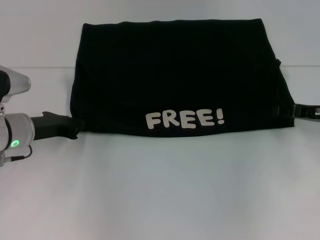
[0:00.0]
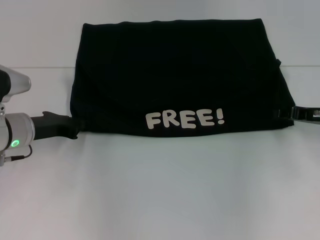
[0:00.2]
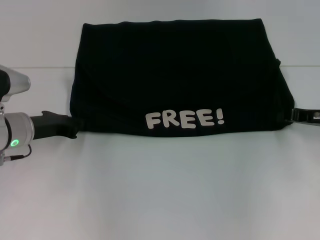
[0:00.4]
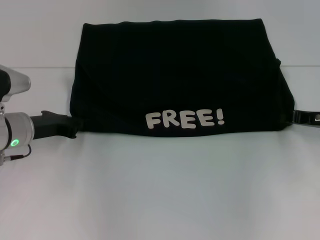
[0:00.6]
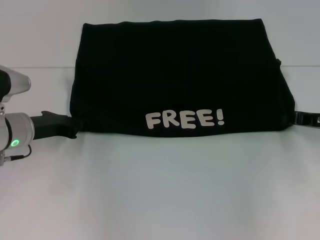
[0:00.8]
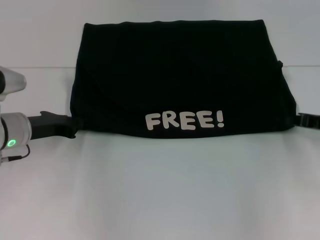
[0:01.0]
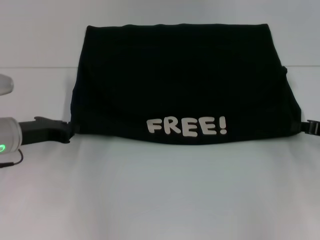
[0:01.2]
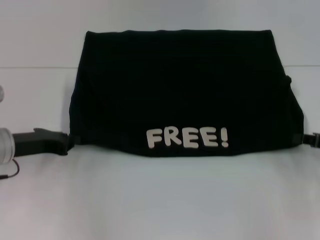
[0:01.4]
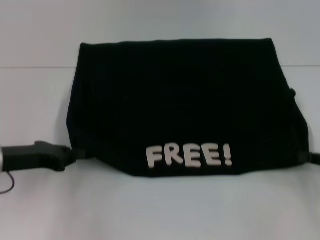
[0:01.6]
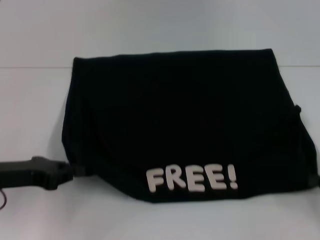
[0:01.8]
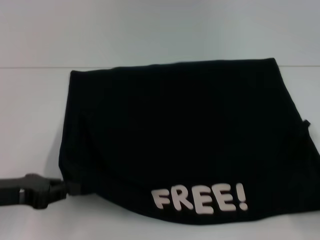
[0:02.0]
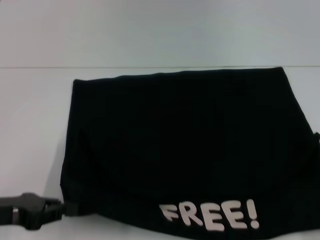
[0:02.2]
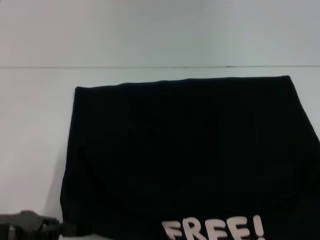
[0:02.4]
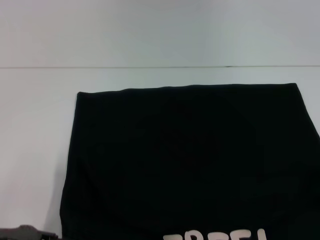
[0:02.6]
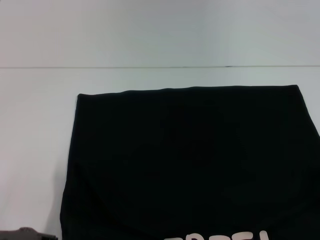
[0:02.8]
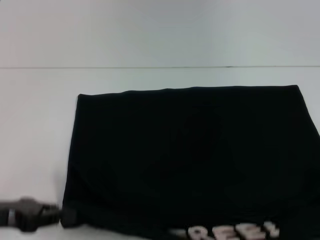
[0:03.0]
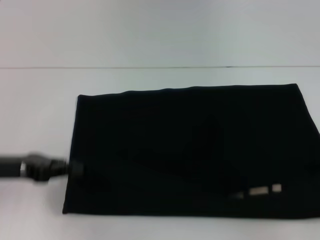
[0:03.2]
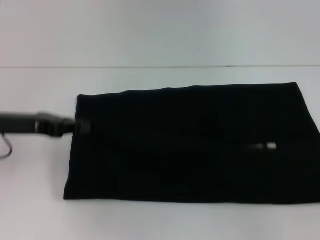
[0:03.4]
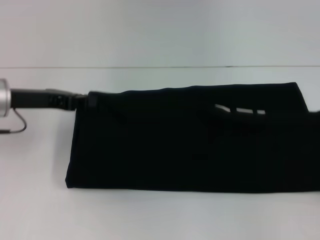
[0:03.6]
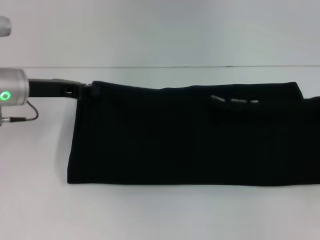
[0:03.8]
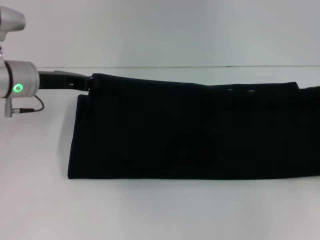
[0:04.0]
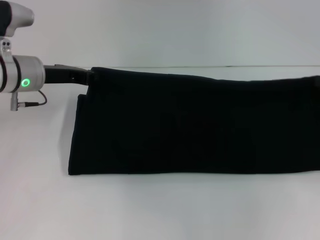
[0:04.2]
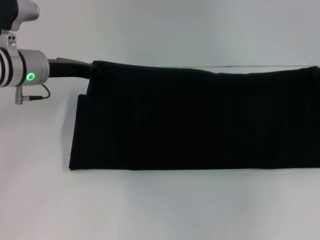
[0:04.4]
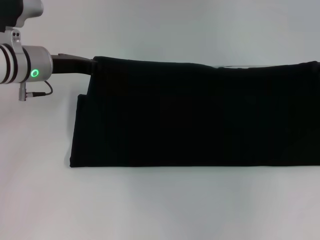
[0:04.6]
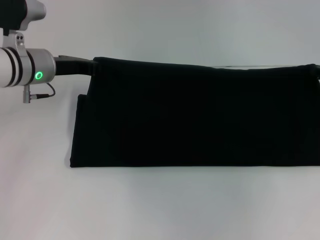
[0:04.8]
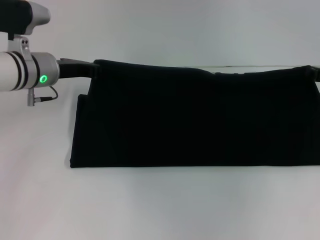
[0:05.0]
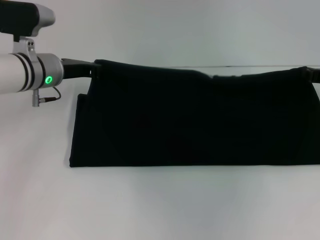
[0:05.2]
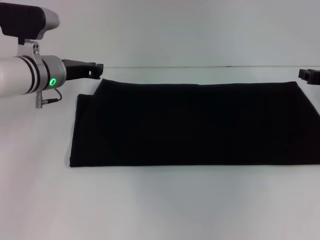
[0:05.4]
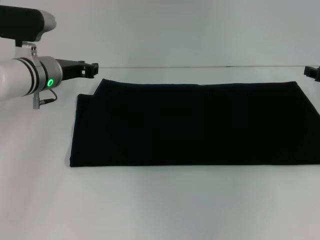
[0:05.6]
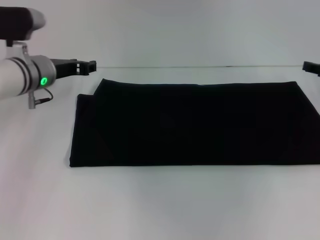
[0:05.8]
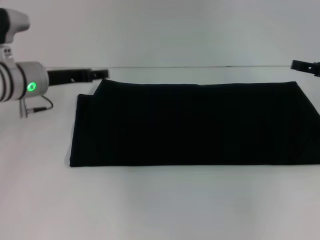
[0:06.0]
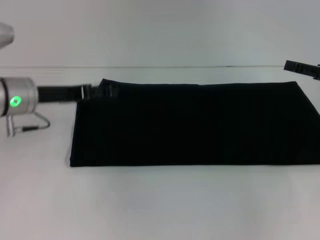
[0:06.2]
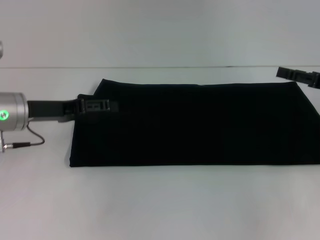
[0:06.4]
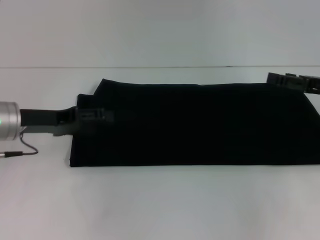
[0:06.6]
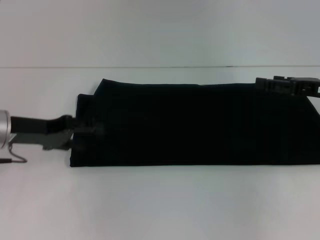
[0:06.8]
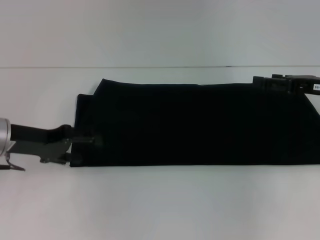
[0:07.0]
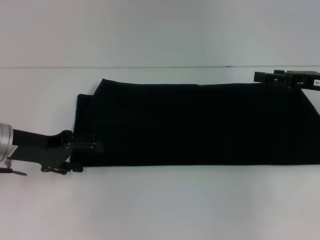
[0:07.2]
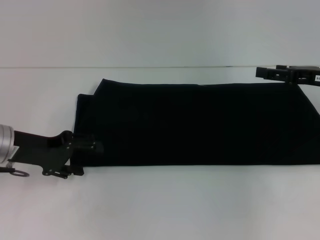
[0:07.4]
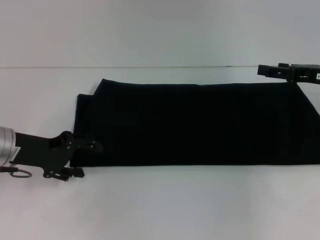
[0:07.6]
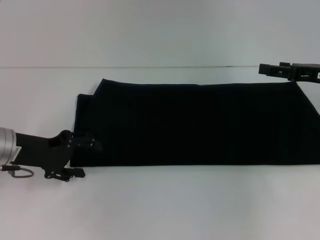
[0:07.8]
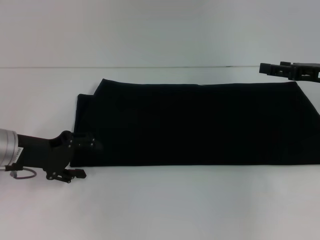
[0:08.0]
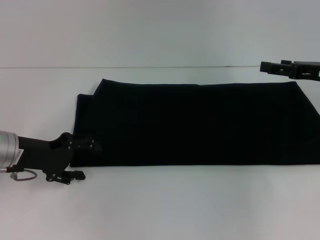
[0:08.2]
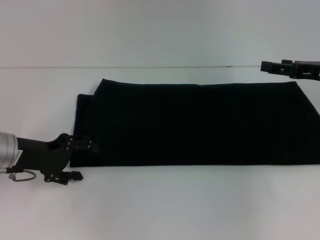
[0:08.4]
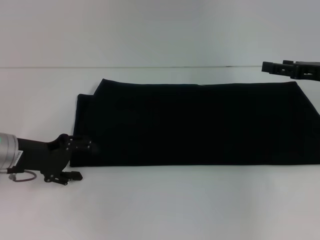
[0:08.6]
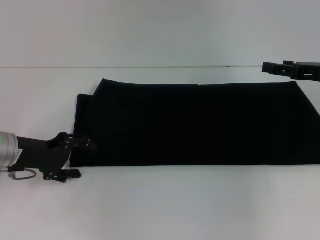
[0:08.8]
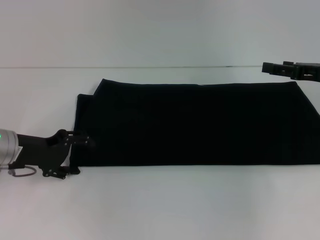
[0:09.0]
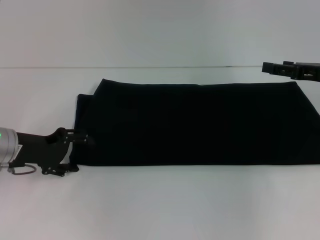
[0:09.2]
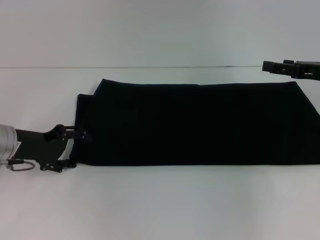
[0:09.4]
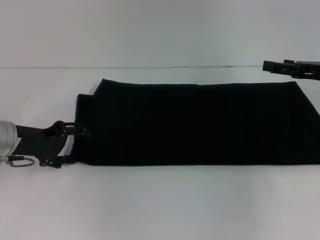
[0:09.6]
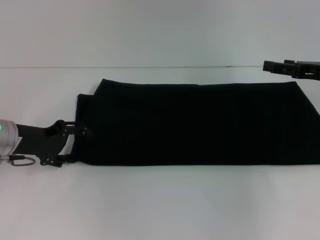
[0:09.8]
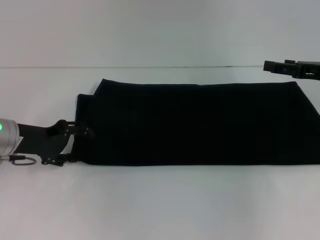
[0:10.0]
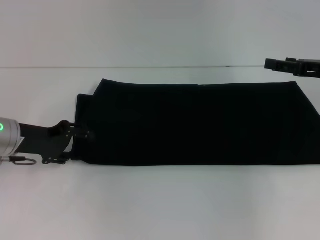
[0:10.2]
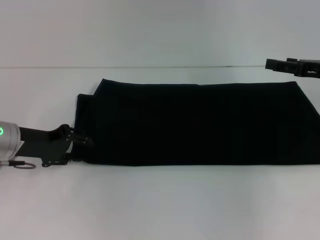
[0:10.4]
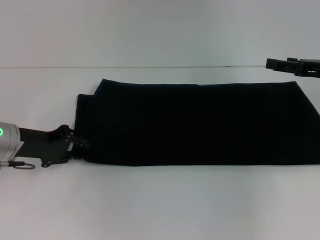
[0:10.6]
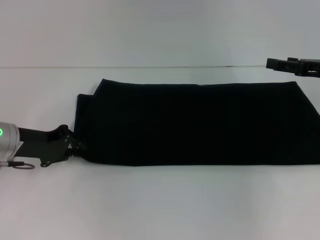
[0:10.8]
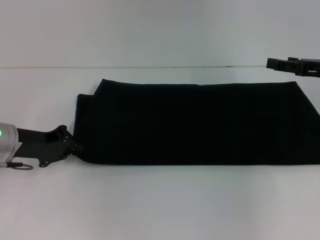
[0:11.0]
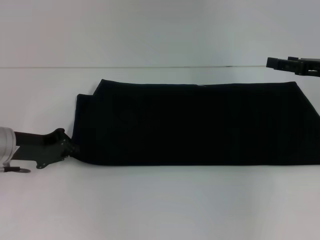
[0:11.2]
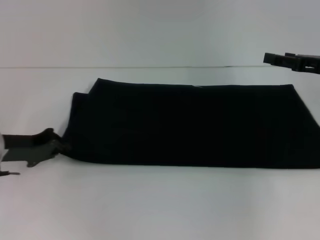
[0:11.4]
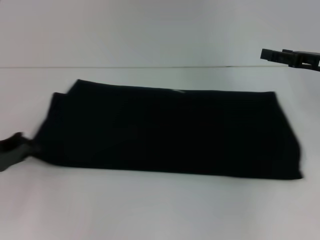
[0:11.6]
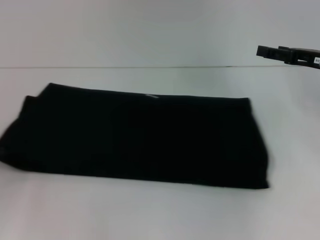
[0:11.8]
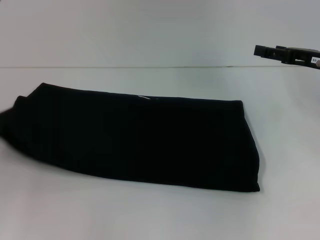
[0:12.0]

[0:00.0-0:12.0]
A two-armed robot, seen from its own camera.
Step, 0:00.0 to 0:02.6: Pull the clothes with your left hand.
Step, 0:00.0 to 0:02.6: Pull the clothes with your right hand.
Step, 0:02.8 to 0:05.4: Fold the clothes with your right hand.
0:00.0 to 0:01.6: The left gripper moves backward, about 5 cm; the right gripper heads backward, covering roughly 10 cm, and closes up.
0:01.6 to 0:03.0: The right gripper shifts about 15 cm backward and to the right; the left gripper is displaced backward by approximately 10 cm.
0:03.0 to 0:04.4: Both grippers travel together forward, some 25 cm.
0:04.4 to 0:06.0: The right gripper opens, while the left gripper opens its fingers.
0:06.0 to 0:07.6: The left gripper heads backward, covering about 10 cm.
0:07.6 to 0:10.4: The grippers move only a little.
0:10.4 to 0:12.0: The left gripper shifts approximately 15 cm to the left and backward, and closes.

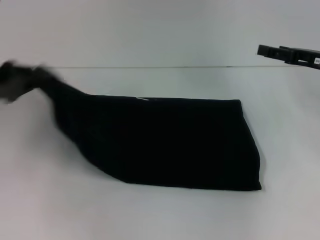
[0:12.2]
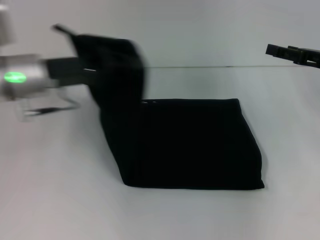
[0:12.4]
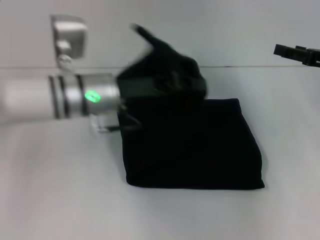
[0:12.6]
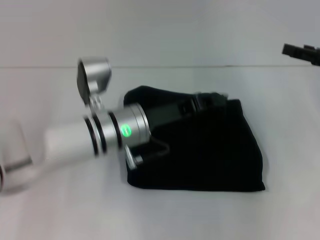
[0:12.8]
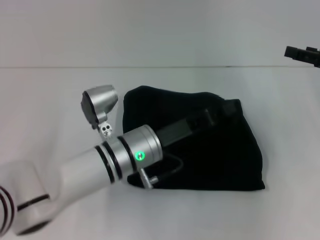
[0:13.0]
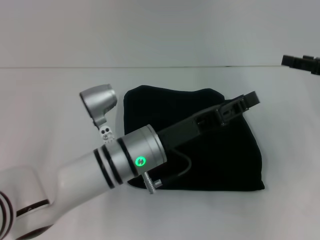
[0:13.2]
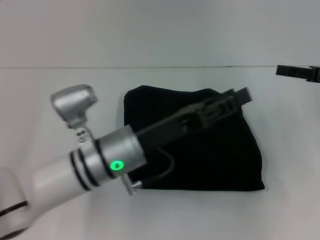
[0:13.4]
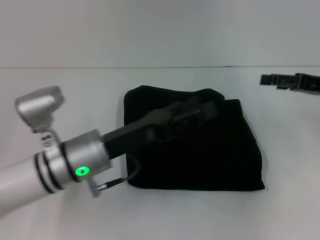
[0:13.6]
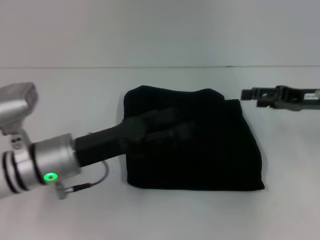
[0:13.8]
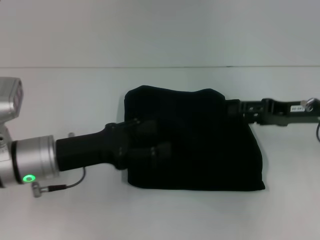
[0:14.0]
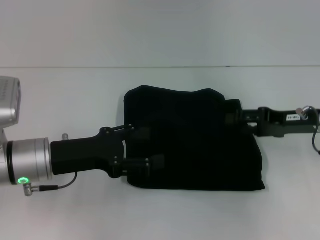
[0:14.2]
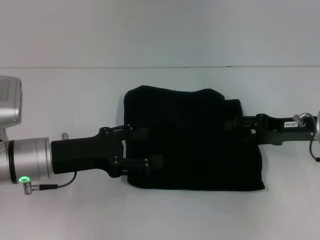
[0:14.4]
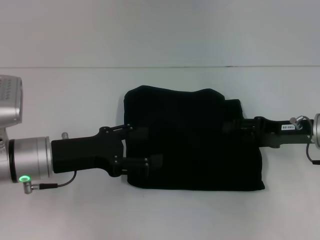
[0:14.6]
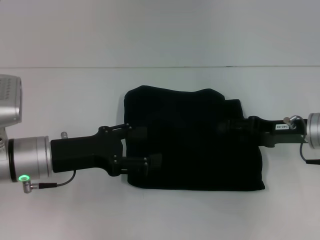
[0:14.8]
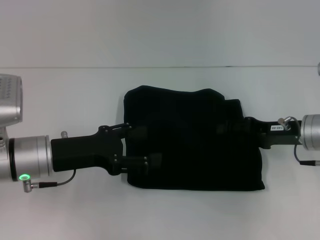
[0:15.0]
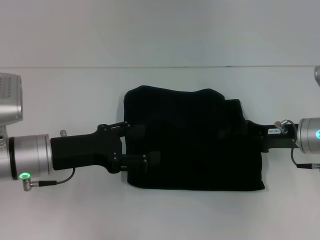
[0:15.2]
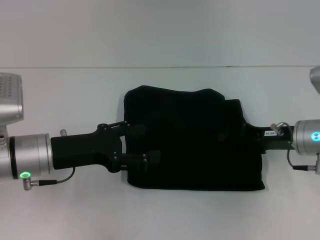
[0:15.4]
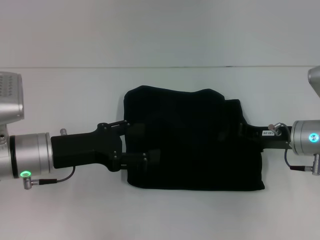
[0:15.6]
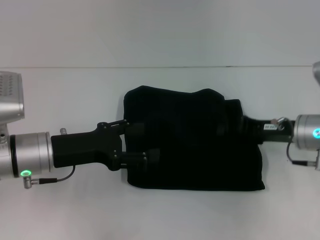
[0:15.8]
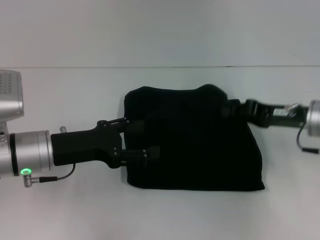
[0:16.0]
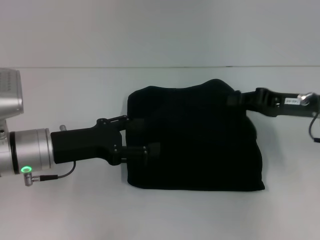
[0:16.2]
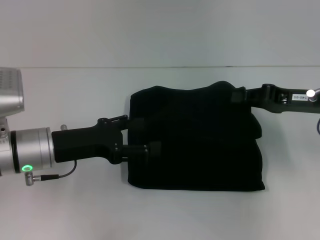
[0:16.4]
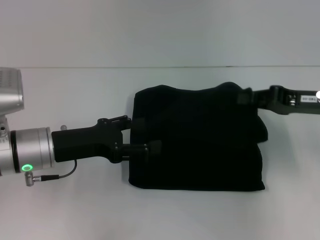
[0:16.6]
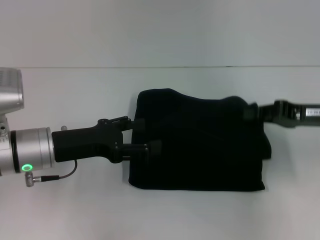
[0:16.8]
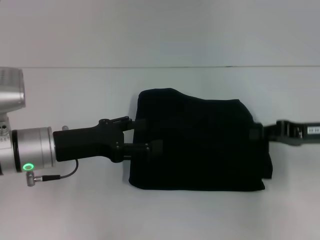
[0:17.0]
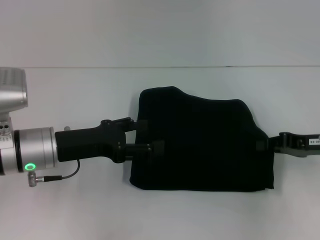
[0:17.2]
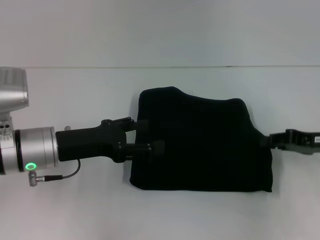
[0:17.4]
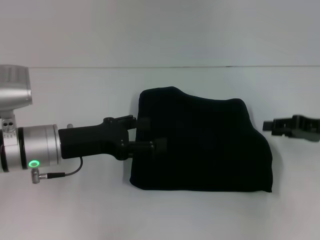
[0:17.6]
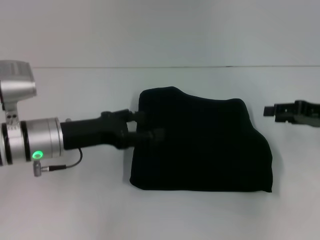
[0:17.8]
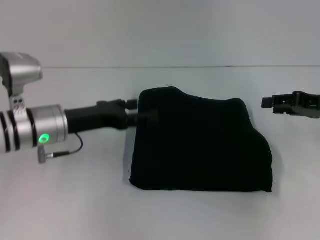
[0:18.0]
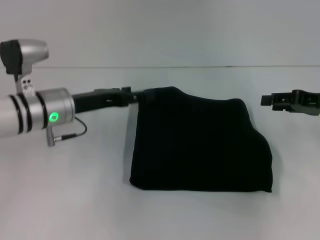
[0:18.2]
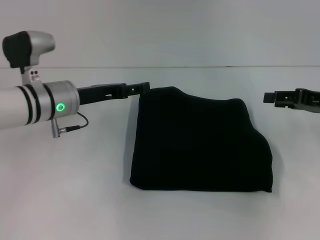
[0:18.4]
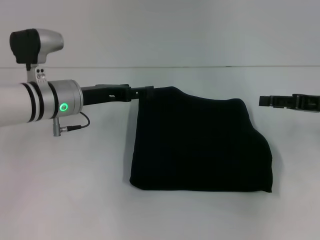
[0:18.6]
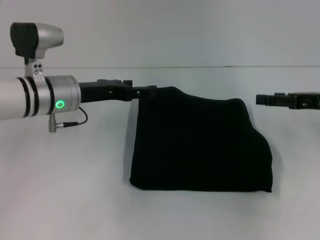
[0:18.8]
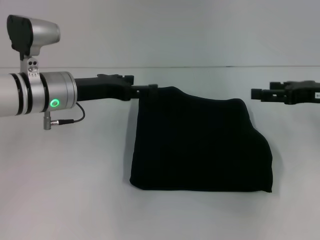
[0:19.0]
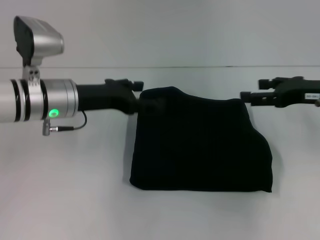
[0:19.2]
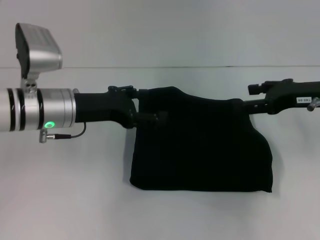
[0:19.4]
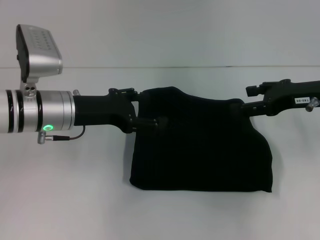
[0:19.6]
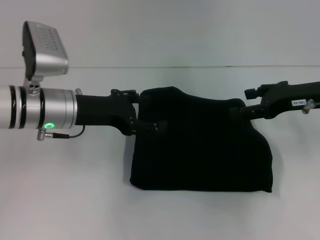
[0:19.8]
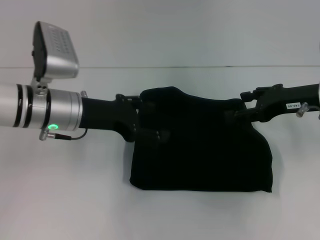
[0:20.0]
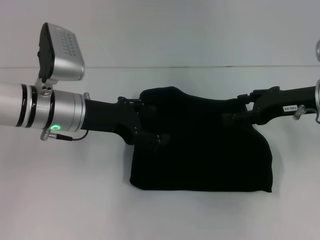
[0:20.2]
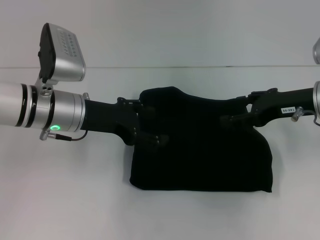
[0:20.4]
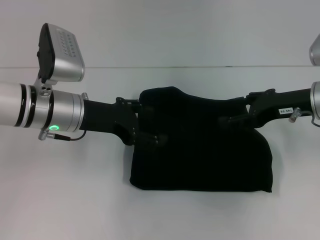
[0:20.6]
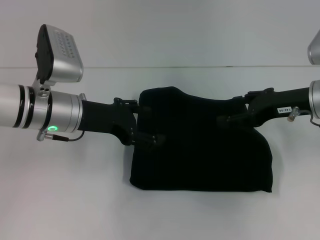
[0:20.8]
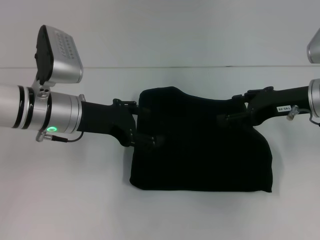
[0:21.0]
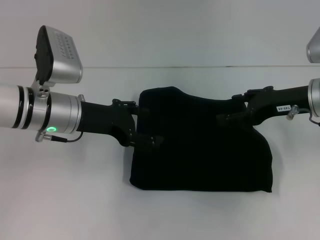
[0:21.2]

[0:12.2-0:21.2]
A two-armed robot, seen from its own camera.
0:12.2 to 0:13.8: The left gripper goes roughly 20 cm to the right and downward, and opens.
0:13.8 to 0:15.2: The right gripper moves downward, some 5 cm.
0:15.2 to 0:16.6: The right gripper shifts roughly 5 cm upward, and closes up.
0:16.6 to 0:18.2: The right gripper opens its fingers. The left gripper moves forward, roughly 5 cm.
0:18.2 to 0:19.8: The right gripper shifts some 5 cm to the left, and opens up.
0:19.8 to 0:21.2: The grippers stay close to where they were, moving slightly.

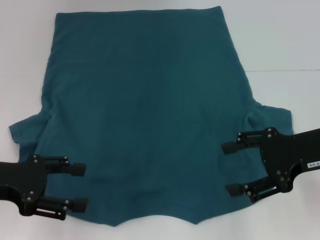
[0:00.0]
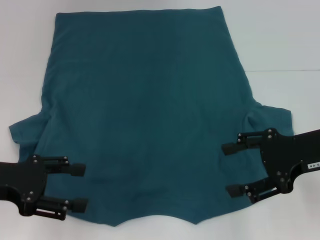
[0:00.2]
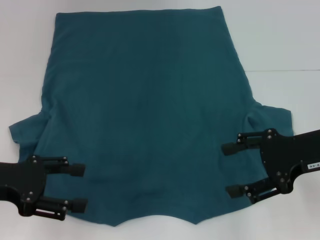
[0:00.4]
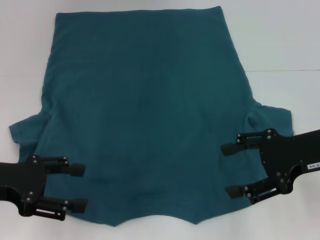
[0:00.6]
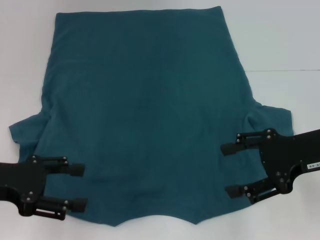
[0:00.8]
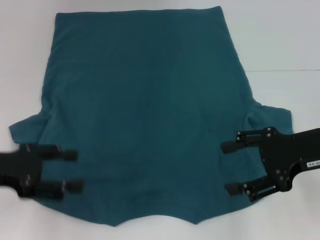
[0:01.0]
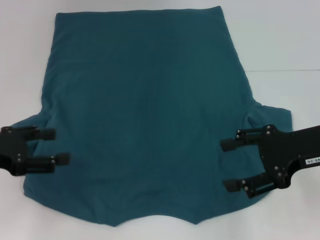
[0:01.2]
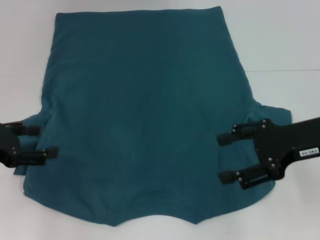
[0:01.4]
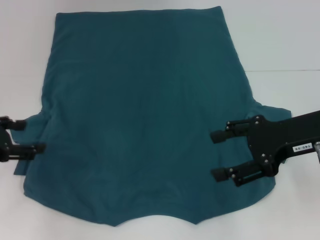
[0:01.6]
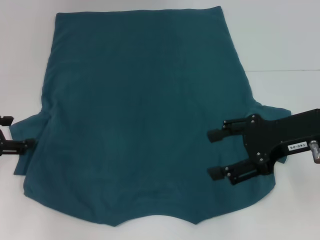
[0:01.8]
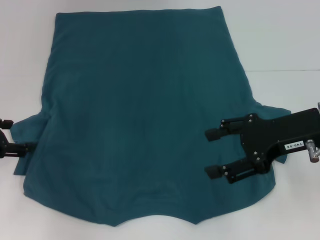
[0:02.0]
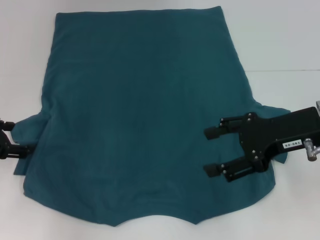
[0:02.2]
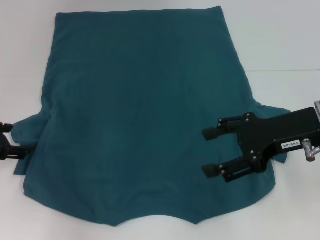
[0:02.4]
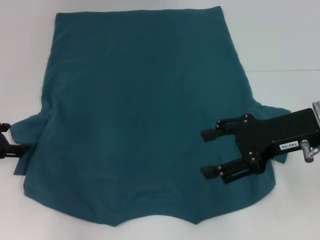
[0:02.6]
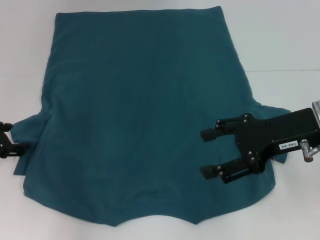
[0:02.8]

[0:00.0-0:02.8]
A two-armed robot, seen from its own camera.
0:01.4 to 0:02.8: The left gripper moves forward, approximately 5 cm.
